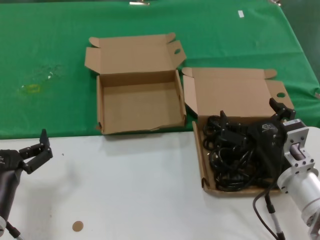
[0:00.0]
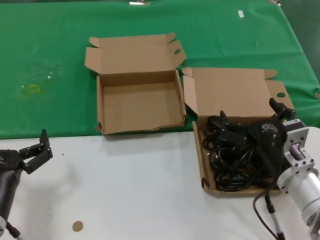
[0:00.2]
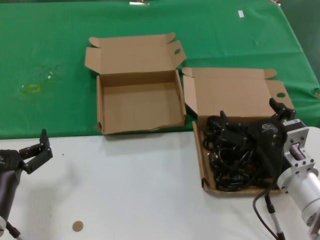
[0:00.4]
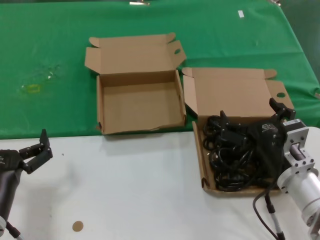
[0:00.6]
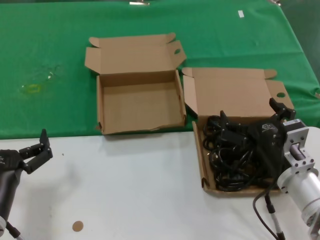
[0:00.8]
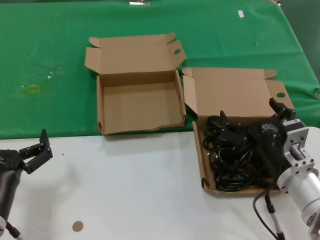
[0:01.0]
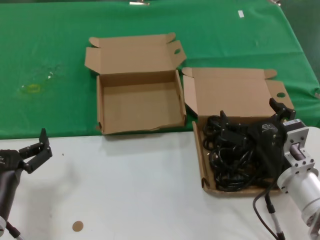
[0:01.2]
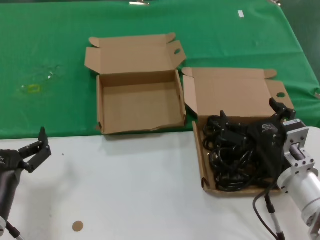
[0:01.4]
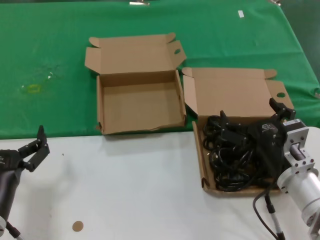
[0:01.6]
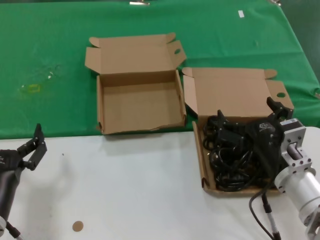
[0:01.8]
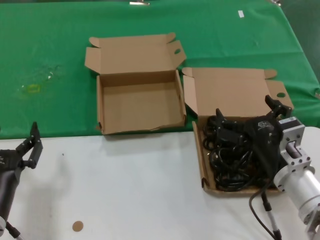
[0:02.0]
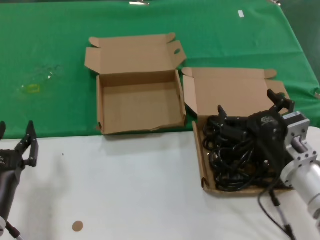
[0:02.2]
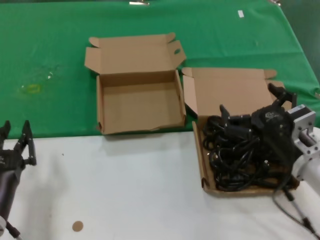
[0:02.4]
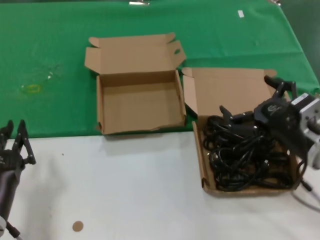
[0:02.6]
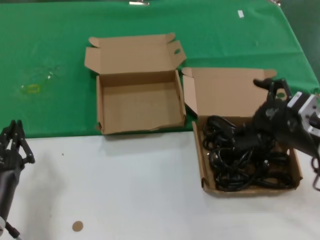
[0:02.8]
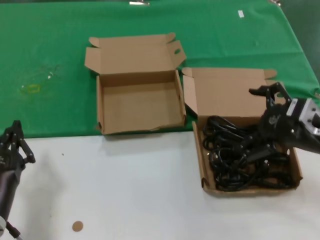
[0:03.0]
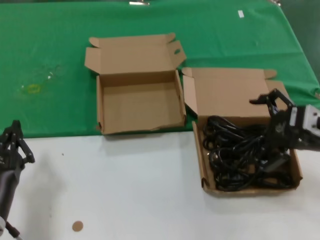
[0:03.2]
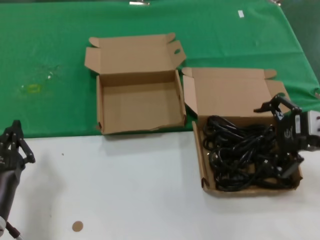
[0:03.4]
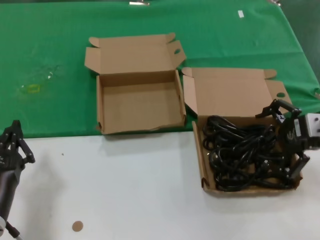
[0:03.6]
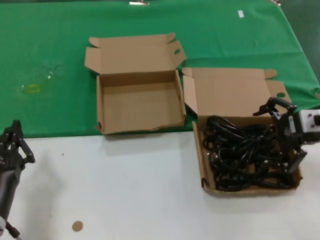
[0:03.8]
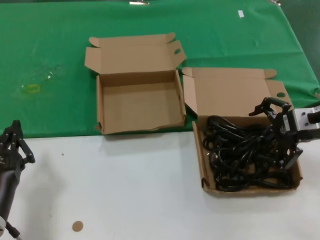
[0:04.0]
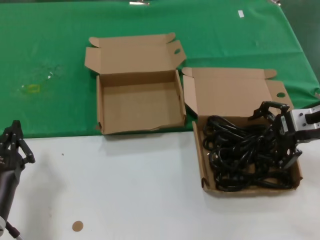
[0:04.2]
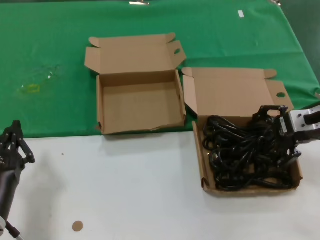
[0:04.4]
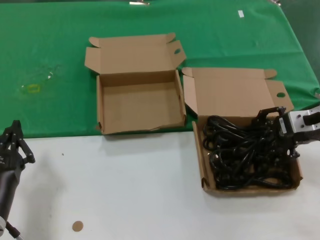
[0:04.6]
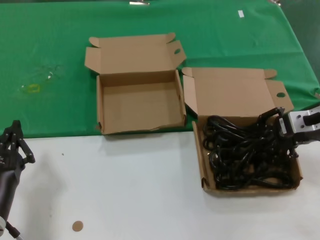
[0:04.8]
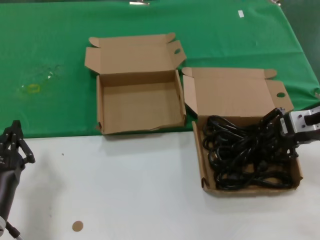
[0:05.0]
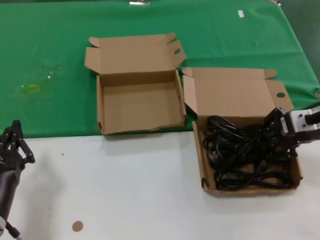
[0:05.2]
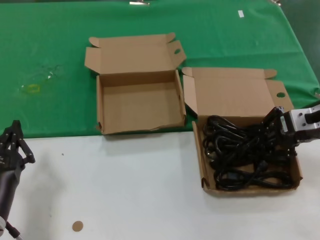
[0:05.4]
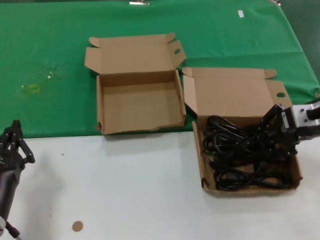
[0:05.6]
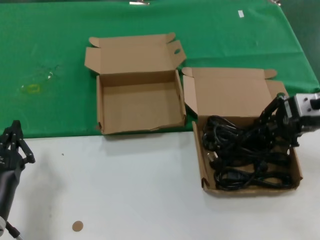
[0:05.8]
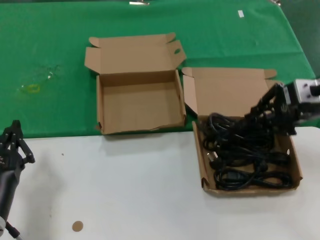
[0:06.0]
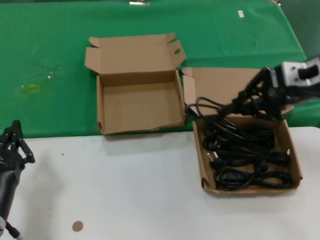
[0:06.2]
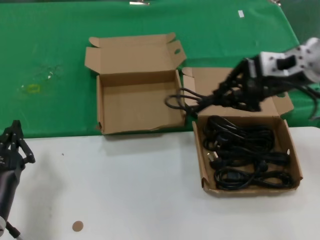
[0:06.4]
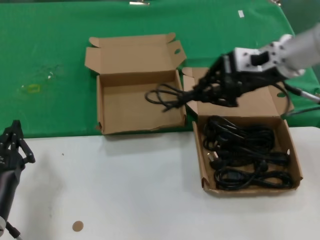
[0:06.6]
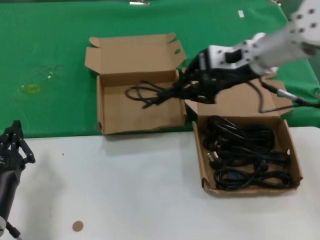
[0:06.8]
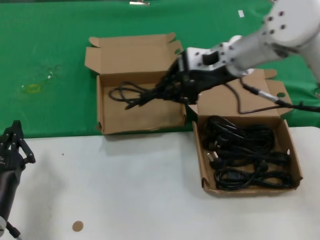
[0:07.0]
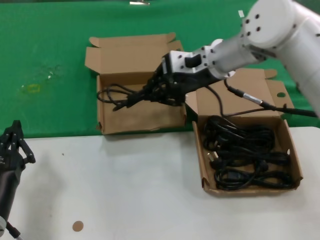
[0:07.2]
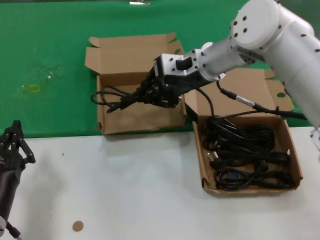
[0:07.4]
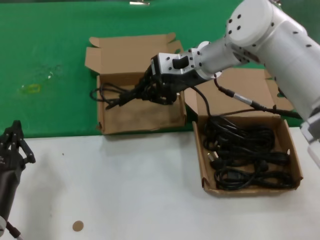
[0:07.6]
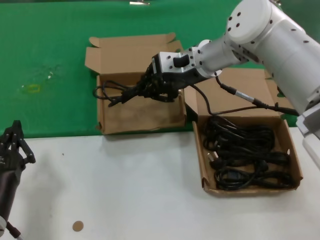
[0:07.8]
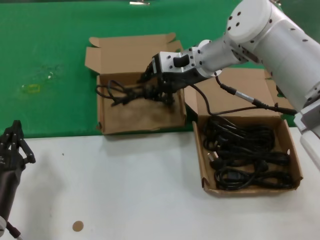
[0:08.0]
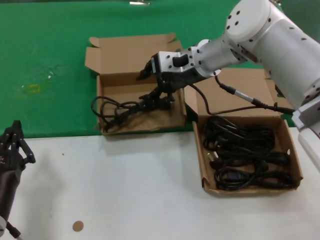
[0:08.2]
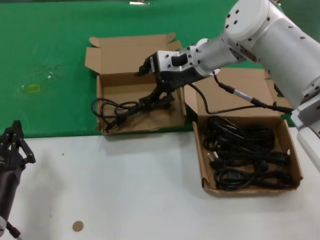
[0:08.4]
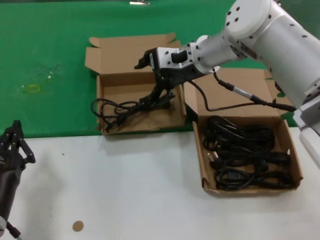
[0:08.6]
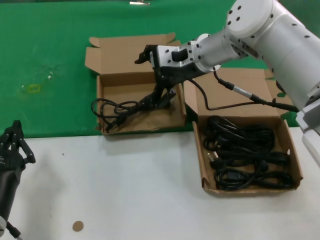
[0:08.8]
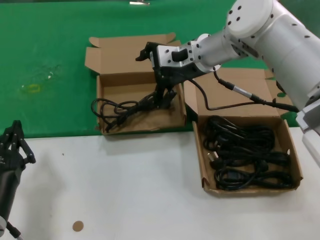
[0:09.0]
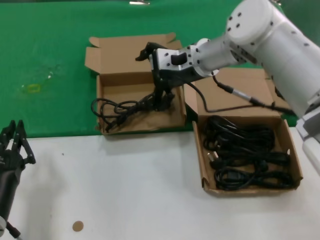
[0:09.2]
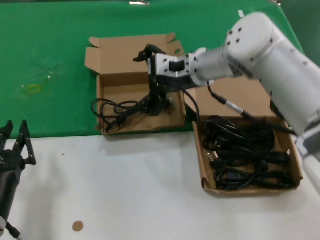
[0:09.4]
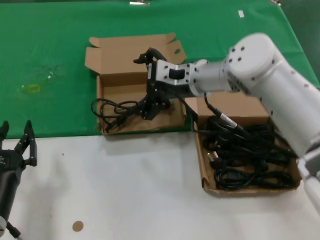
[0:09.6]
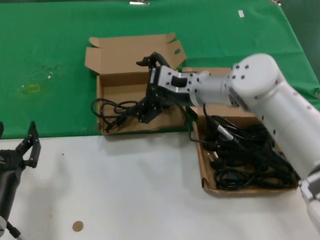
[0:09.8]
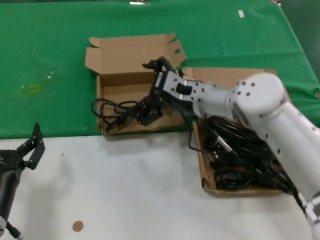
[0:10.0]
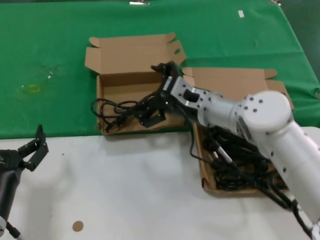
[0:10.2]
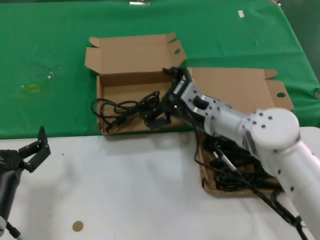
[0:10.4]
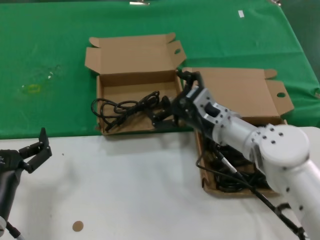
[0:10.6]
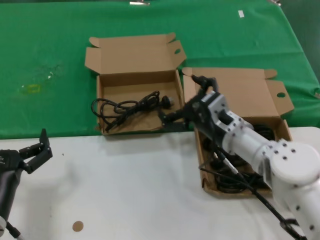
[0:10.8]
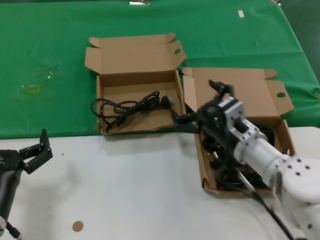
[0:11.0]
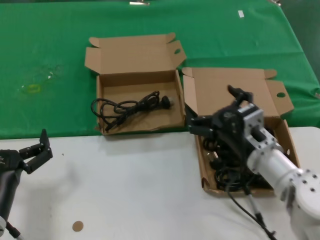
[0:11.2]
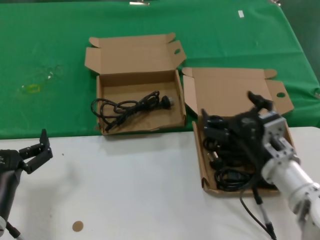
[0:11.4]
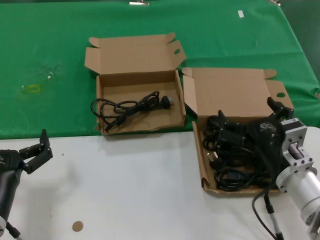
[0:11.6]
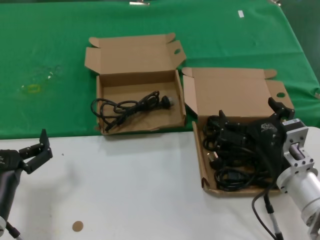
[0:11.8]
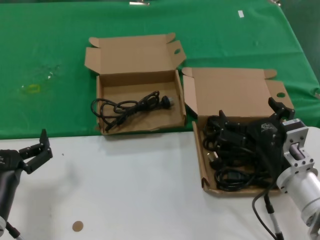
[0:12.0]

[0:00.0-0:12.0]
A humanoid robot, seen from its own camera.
Task of the whole recording: take the parts from the box containing them and put them into an empty box.
Step, 0:00.0 to 0:05.2: Grasp the data cable.
Step, 0:05.4 to 0:09.0: Place the data cable in the another box.
0:00.0 to 0:01.6: The two hands keep their place.
0:01.6 to 0:03.0: The right hand travels upward and to the right by about 15 cm.
0:03.0 to 0:04.4: The right hand travels forward by about 10 cm.
0:04.4 to 0:06.0: The right hand travels upward by some 5 cm.
0:06.0 to 0:07.6: The right hand shifts some 25 cm to the left and forward.
0:07.6 to 0:09.0: Both hands stay about where they are.
0:09.0 to 0:10.4: The right hand heads downward and backward, covering approximately 15 cm.
0:10.4 to 0:12.0: The right hand shifts about 20 cm backward and to the right.

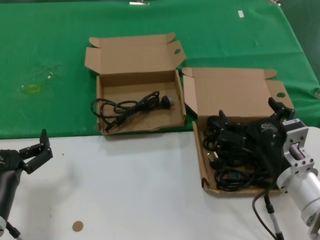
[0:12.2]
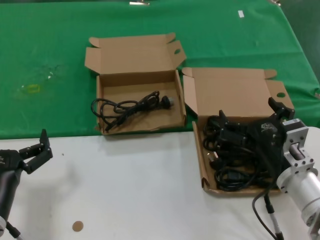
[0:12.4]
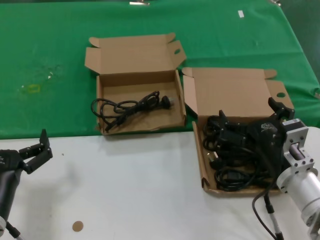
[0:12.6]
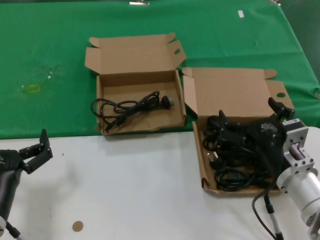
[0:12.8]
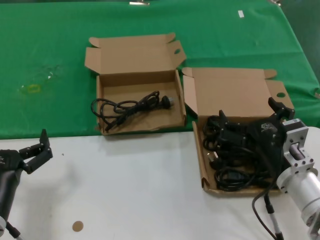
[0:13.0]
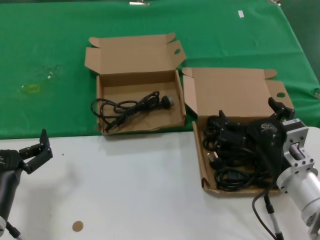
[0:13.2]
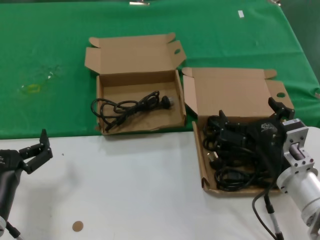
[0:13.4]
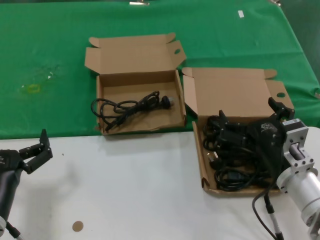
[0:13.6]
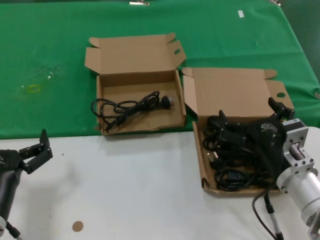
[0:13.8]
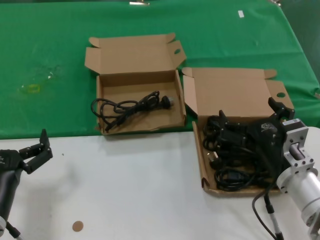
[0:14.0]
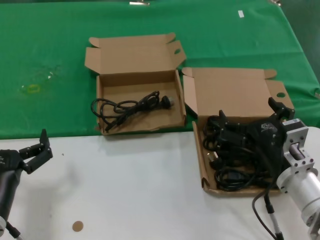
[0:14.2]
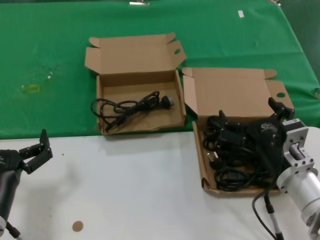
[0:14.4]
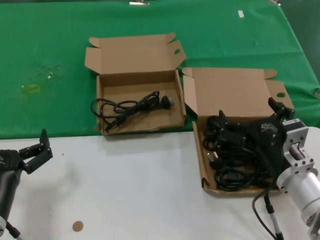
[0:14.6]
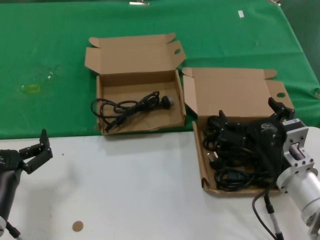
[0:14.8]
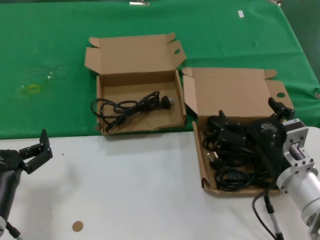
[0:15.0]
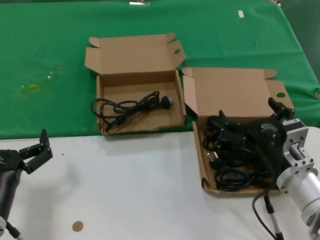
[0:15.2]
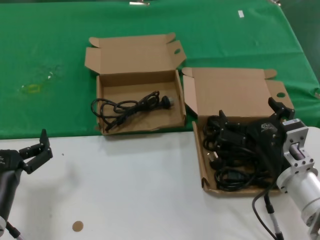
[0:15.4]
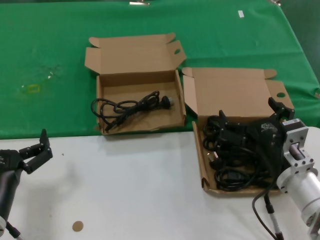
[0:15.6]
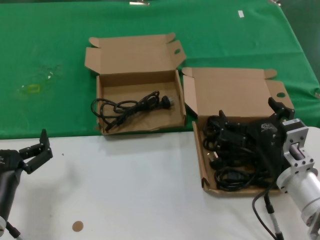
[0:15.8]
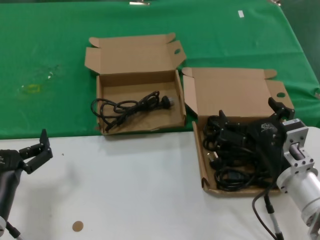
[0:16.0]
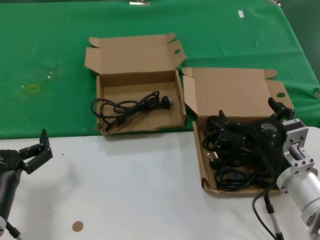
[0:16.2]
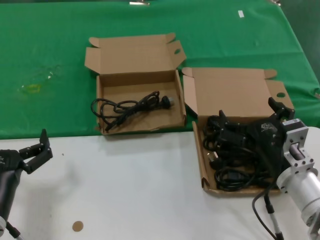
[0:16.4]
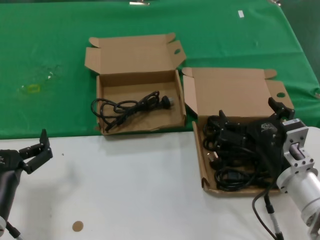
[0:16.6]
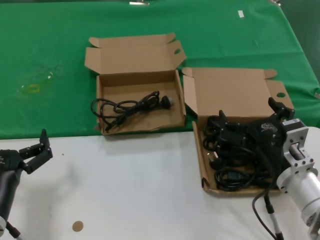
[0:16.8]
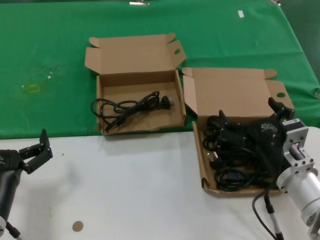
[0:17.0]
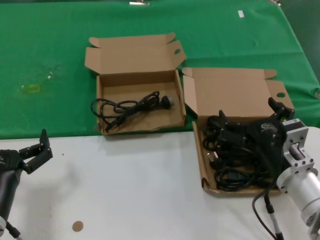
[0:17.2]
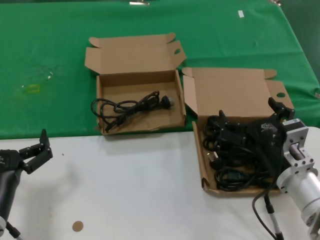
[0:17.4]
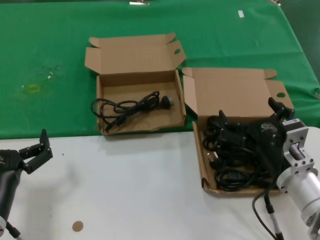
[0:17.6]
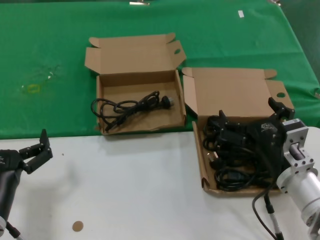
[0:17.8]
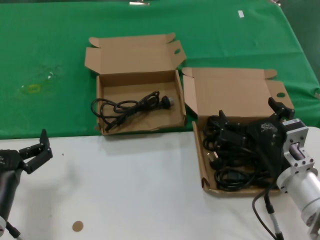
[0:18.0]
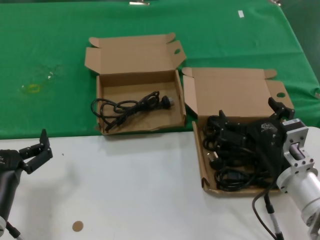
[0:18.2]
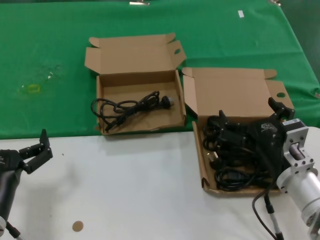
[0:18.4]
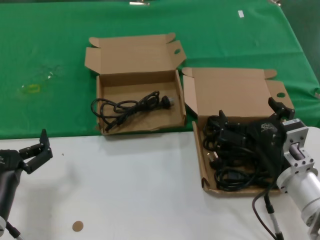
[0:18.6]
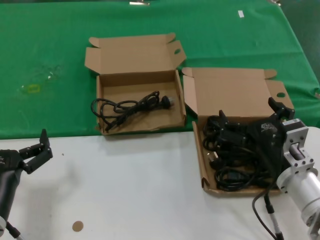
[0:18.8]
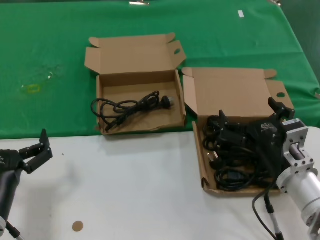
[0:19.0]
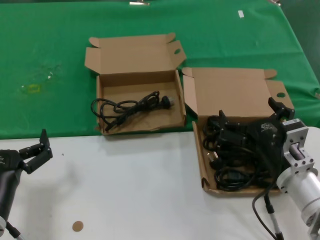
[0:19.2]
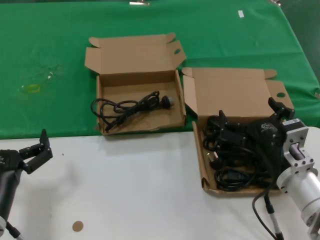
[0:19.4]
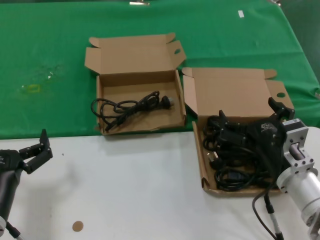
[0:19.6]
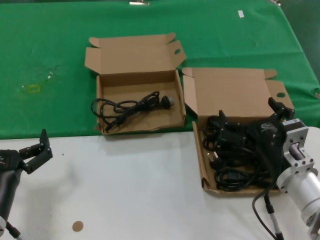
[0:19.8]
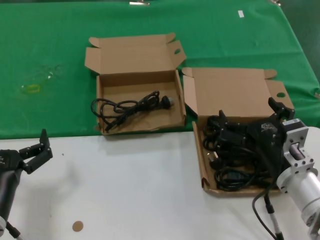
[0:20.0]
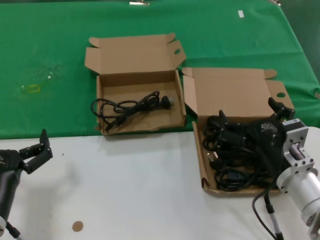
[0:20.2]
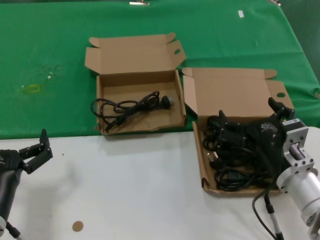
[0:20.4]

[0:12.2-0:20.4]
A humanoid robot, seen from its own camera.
Task of the whole recording: take the parts from the box containing them and put them into an empty box.
0:12.2 to 0:20.4: The two hands keep their place.
